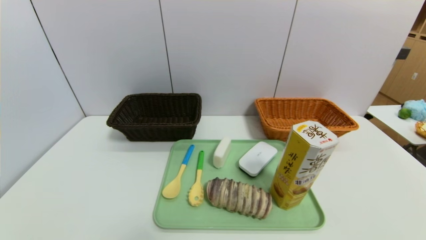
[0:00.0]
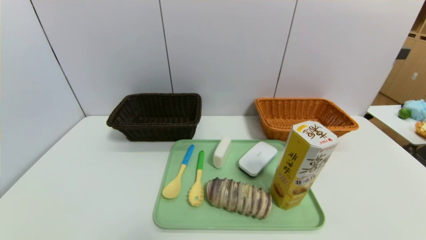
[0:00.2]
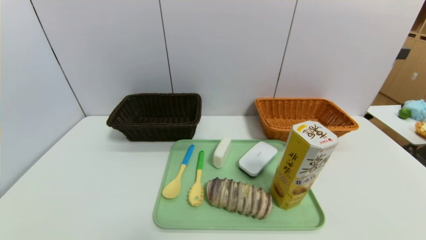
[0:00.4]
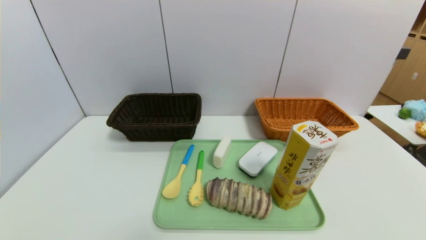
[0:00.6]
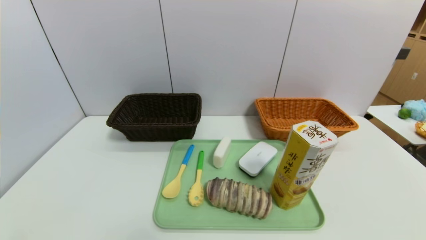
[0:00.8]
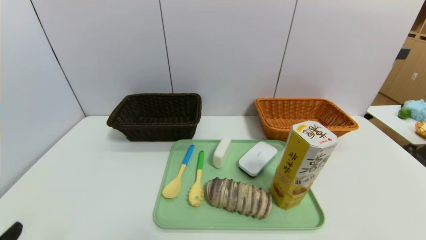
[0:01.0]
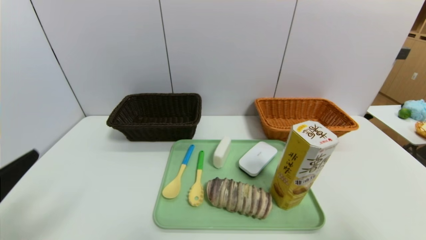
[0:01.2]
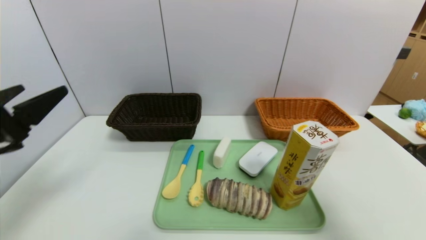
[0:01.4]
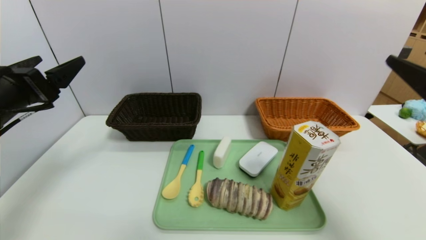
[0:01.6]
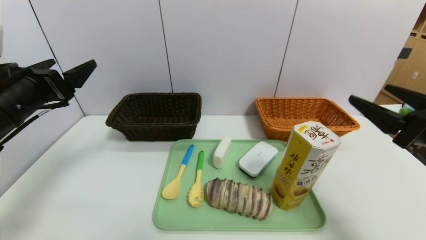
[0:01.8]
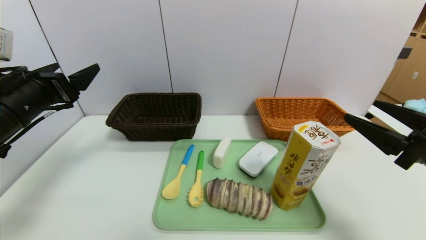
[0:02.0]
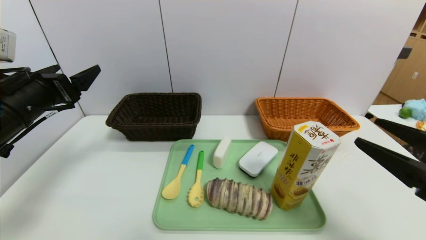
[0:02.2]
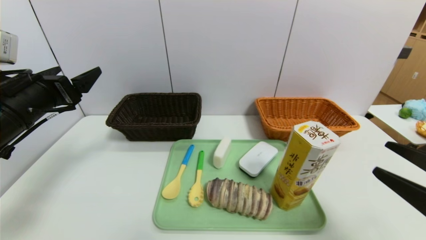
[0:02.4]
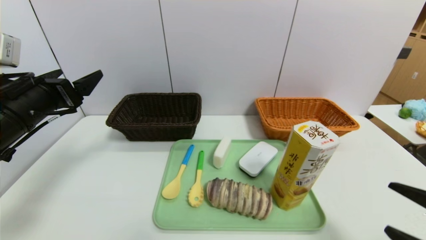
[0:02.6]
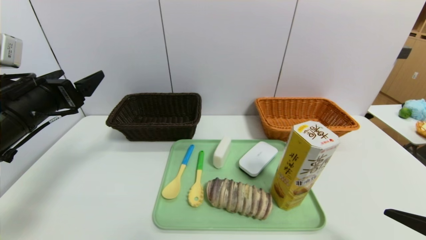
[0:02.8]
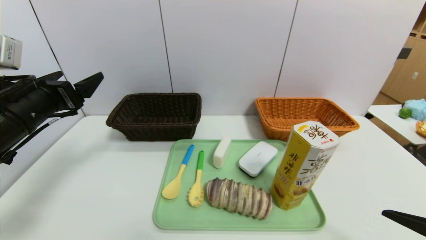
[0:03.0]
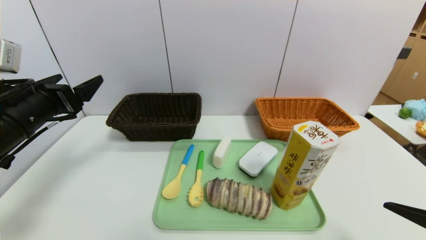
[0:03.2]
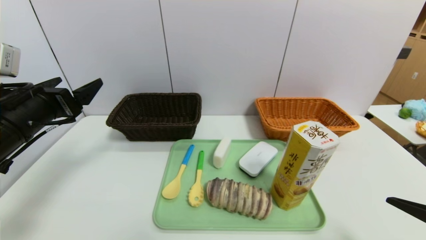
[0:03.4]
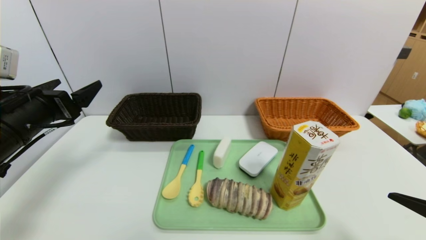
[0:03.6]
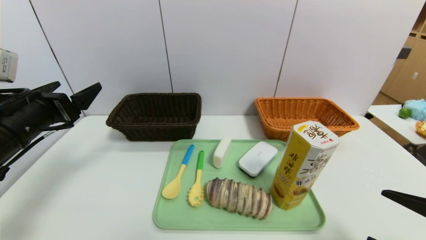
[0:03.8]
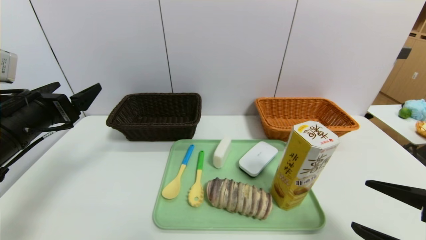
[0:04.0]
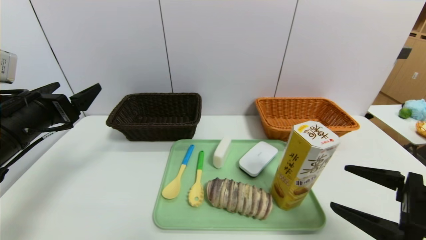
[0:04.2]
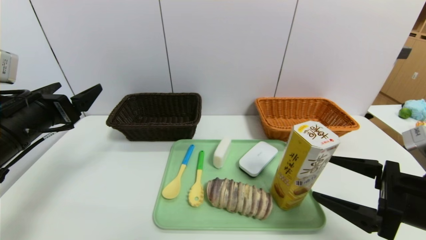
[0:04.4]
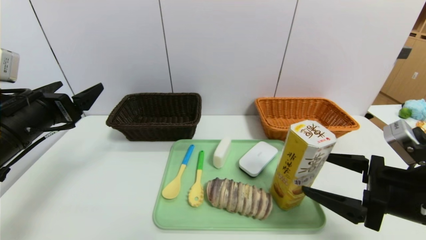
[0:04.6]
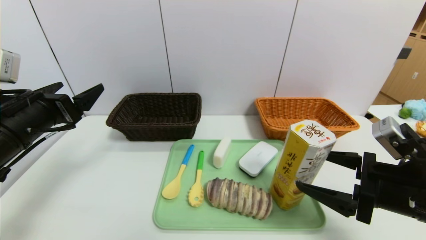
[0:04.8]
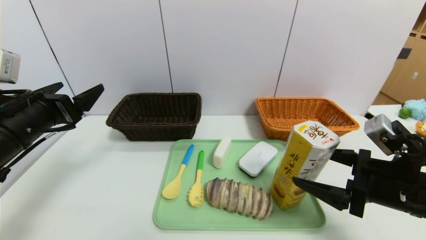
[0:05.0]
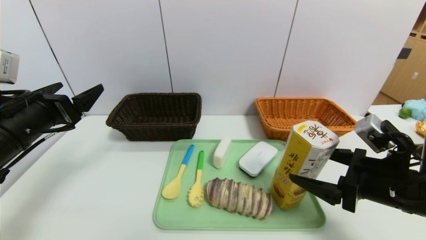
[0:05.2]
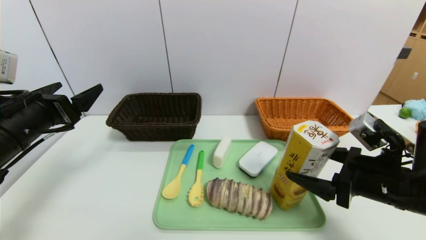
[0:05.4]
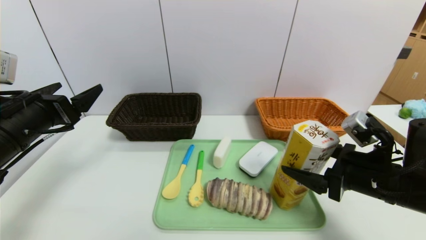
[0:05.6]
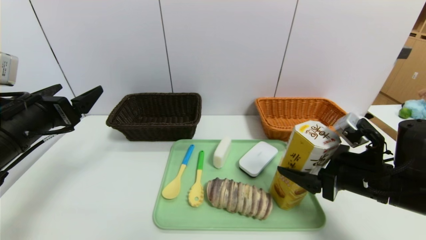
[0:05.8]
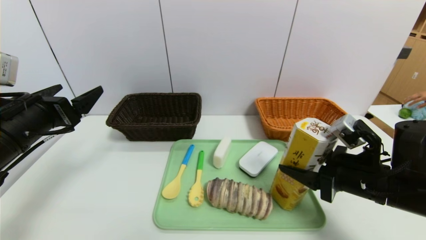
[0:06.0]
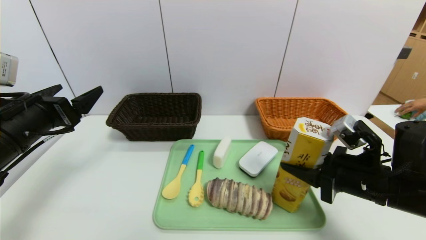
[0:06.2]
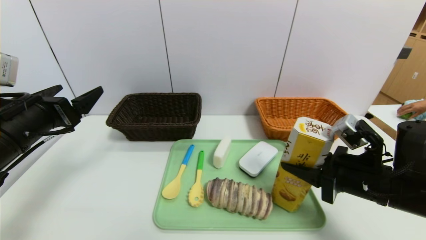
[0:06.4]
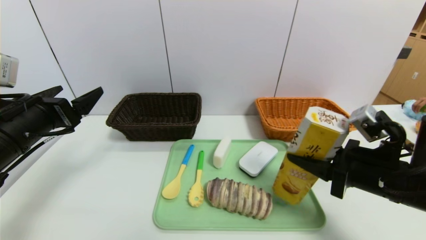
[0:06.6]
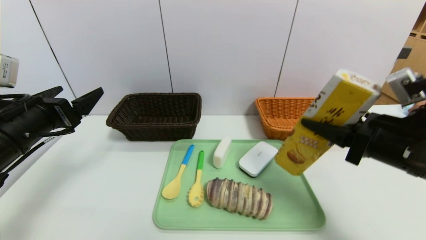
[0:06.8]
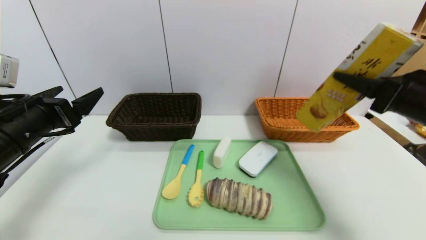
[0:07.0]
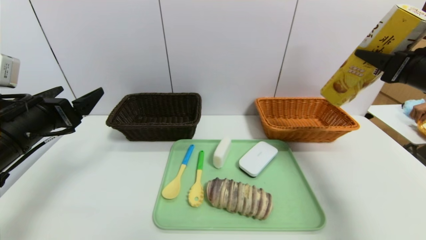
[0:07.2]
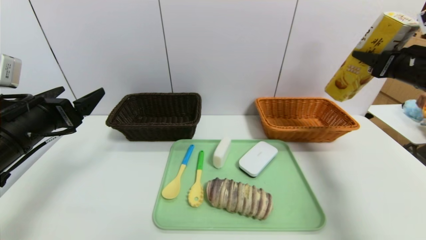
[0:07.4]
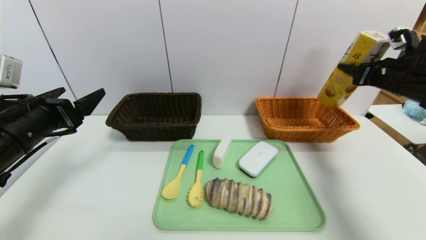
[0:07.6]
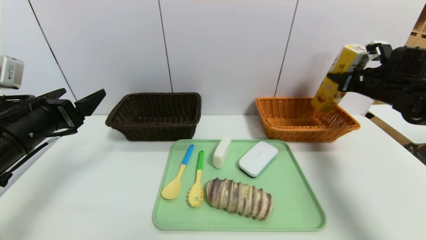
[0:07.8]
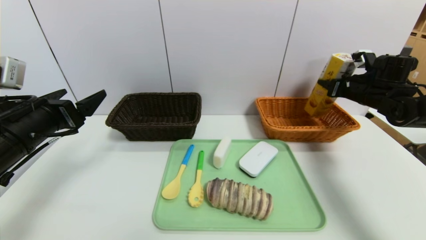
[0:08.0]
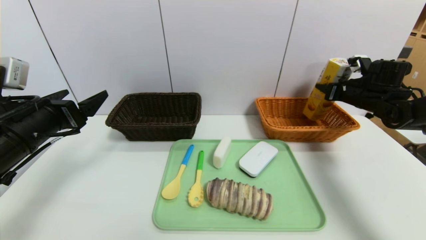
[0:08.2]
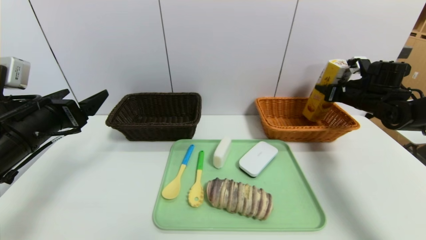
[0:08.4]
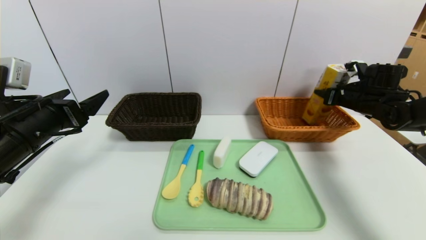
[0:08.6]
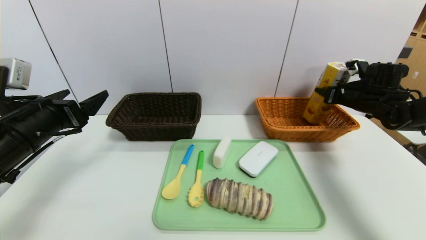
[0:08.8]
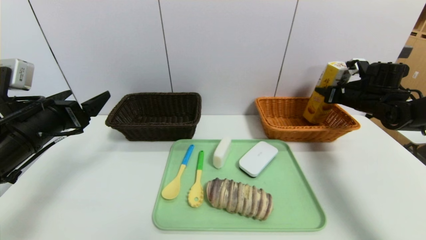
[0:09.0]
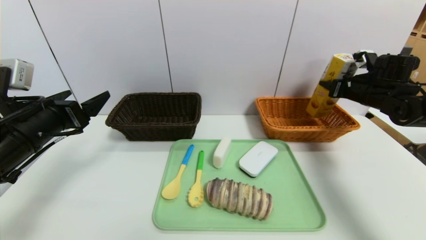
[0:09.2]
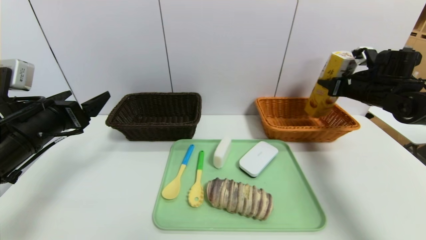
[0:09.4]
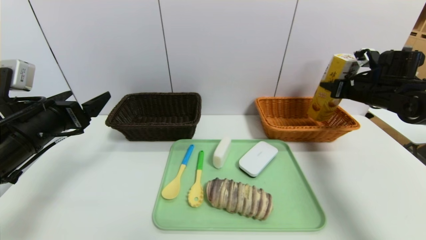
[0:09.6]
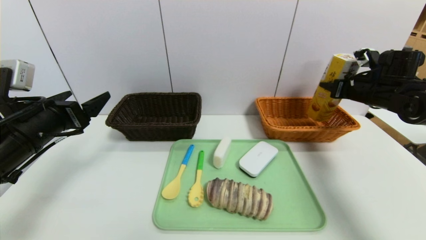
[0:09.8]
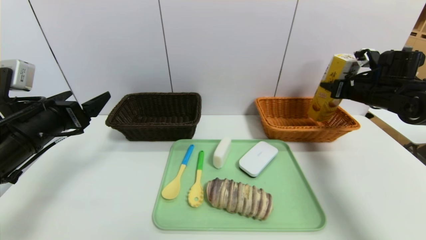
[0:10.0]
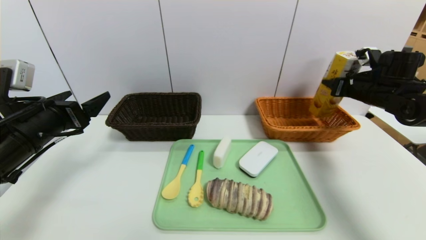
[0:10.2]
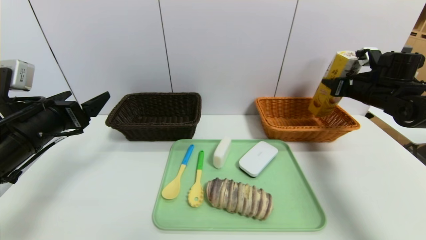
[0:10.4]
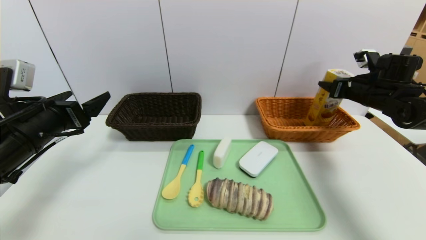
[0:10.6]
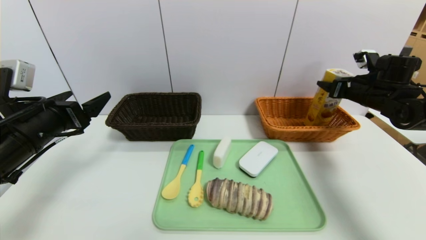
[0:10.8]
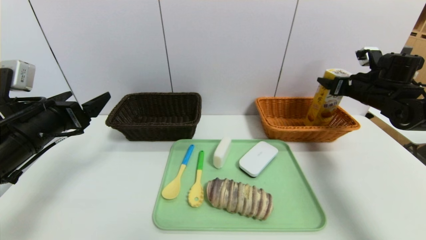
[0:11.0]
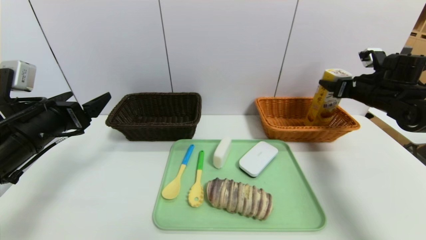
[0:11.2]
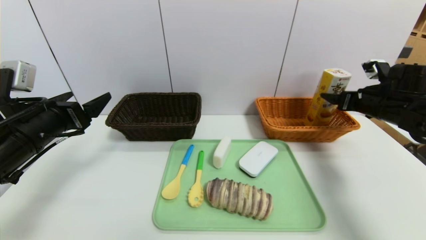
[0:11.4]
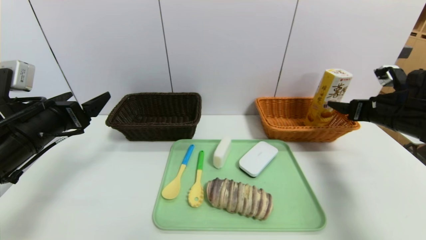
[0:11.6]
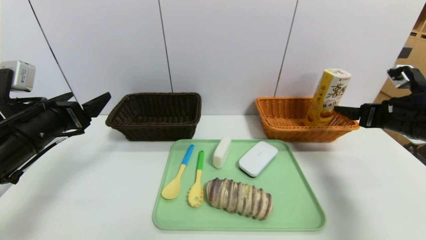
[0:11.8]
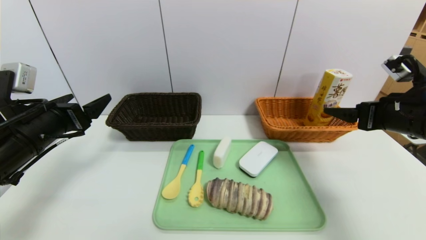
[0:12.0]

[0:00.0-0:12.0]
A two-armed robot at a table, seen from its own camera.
Task of the whole recording: place the food in the right basket with the right gripper, and place the non food items in the left basket with the left gripper.
Step, 0:00.0 to 0:12.0: Grasp the potato chips and put it in the right basket.
0:00.0 to 0:01.6: The left gripper shifts approximately 30 cm forward and upward. The right gripper is displaced upward and forward by roughly 25 cm.
0:01.6 to 0:03.0: The right gripper travels downward and backward by some 15 cm.
0:03.0 to 0:04.4: The right gripper shifts roughly 10 cm forward.
0:04.4 to 0:06.0: The right gripper goes approximately 5 cm forward.
0:06.0 to 0:07.6: The right gripper heads forward, to the right and upward, covering roughly 25 cm.
0:07.6 to 0:09.0: The right gripper moves forward and downward, approximately 10 cm.
0:09.0 to 0:10.4: The grippers stay close to where they were, moving slightly.
0:10.4 to 0:12.0: The right gripper shifts about 20 cm backward and to the left, and opens up.

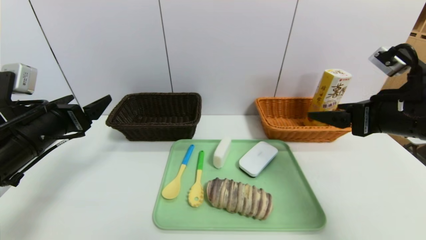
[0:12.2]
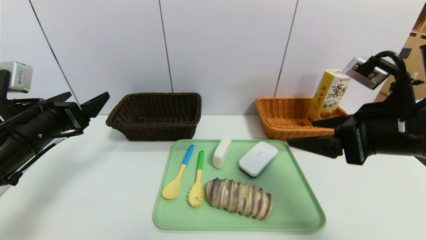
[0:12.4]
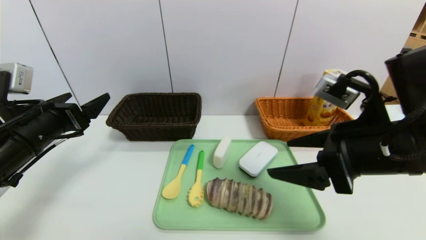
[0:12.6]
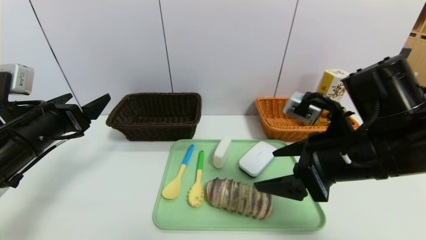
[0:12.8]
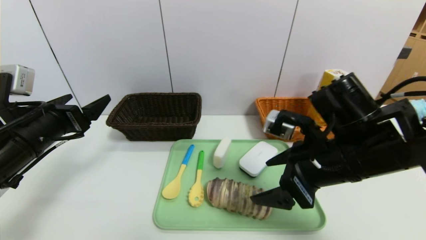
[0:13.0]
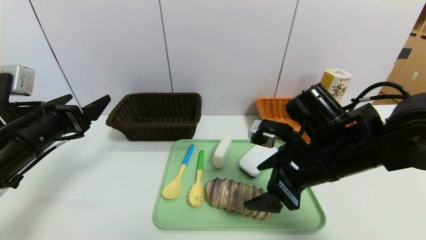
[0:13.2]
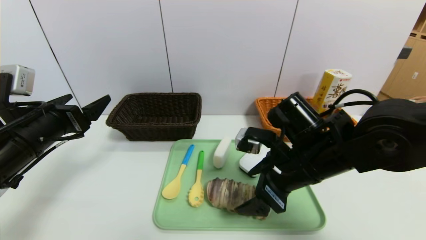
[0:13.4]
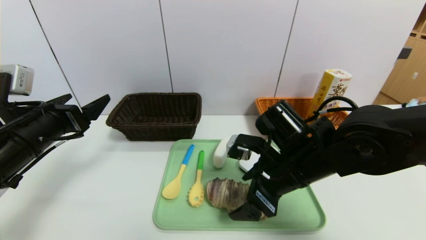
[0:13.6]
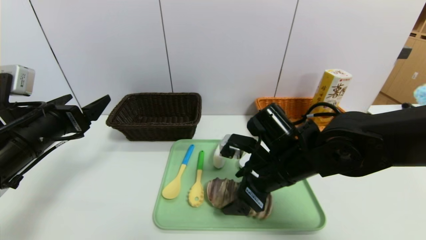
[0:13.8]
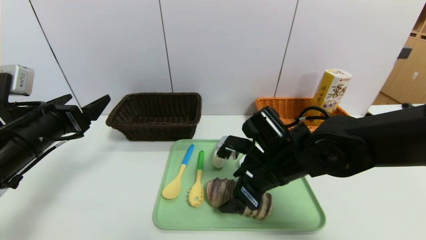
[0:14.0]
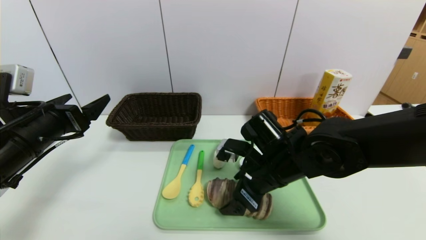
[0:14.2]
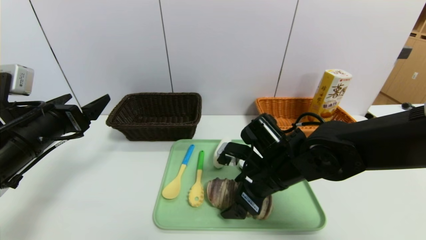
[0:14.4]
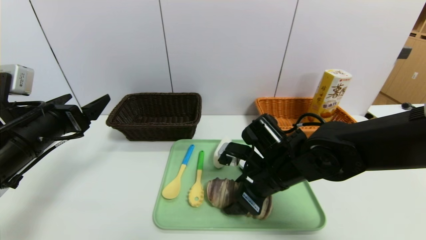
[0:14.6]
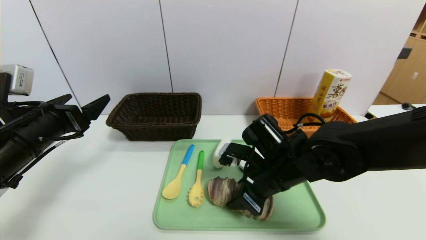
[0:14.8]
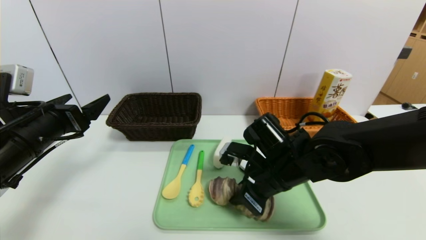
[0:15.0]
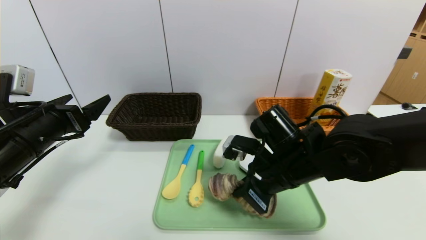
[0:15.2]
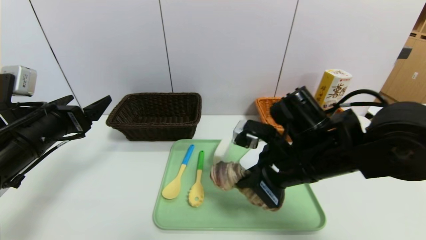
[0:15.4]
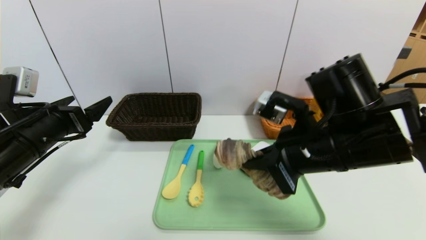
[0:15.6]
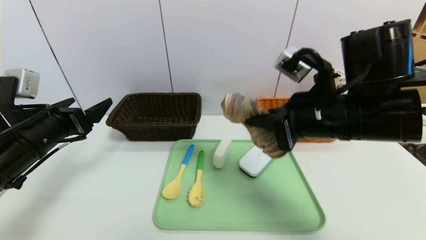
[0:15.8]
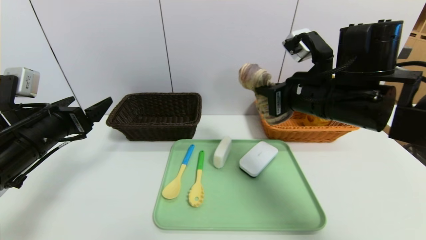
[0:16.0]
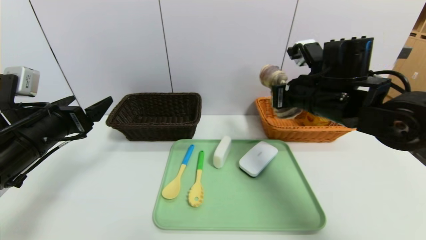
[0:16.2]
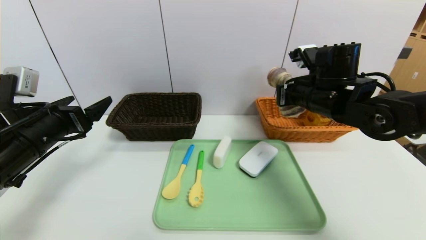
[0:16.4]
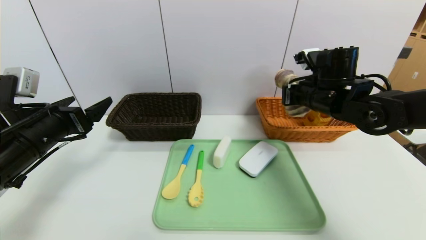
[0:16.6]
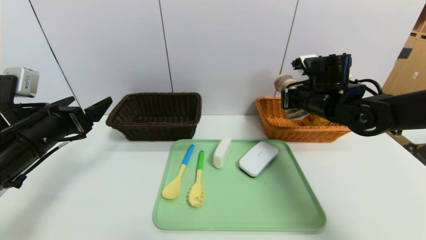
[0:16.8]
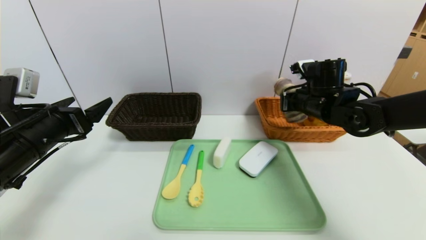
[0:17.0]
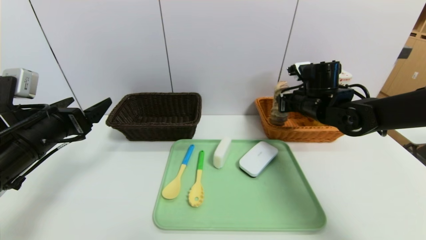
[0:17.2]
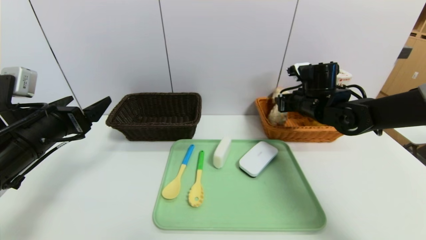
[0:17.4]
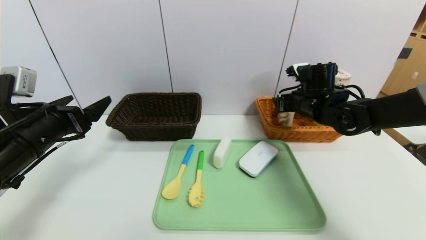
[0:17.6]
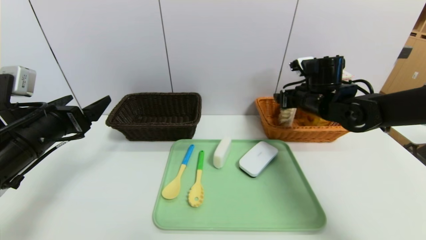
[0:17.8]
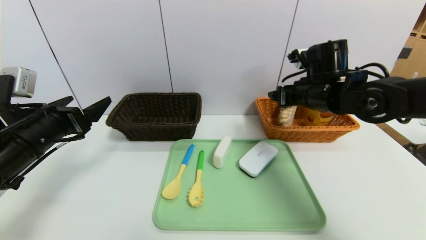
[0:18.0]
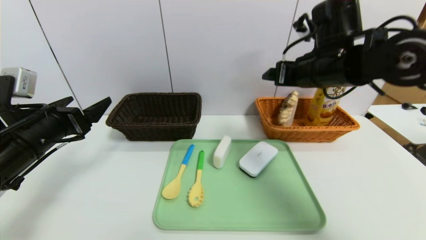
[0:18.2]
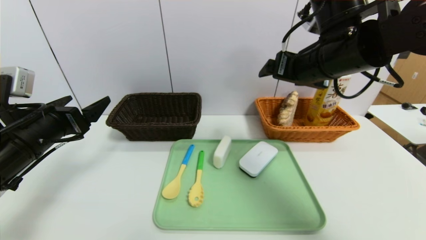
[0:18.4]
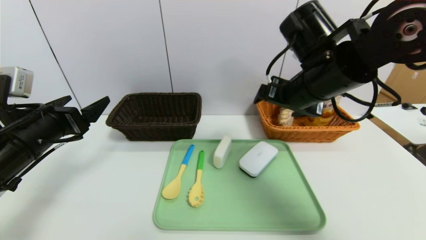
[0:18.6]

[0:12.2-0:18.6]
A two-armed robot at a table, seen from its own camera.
Task of the whole recording: place the food in the right basket with the right gripper, and place the non food items in the left basket with the left gripper.
Step, 0:12.2 to 0:18.6: Grasp the long bread and put it in the right basket.
0:12.2 to 0:13.8: The right gripper shifts roughly 20 cm to the left and downward.
0:13.8 to 0:15.4: The right gripper shifts by about 5 cm, and closes up.
0:15.4 to 0:17.0: The right gripper moves forward and to the right, some 20 cm.
0:17.0 to 0:18.6: The right gripper heads backward, upward and to the left, covering some 15 cm, and opens its fingers.
